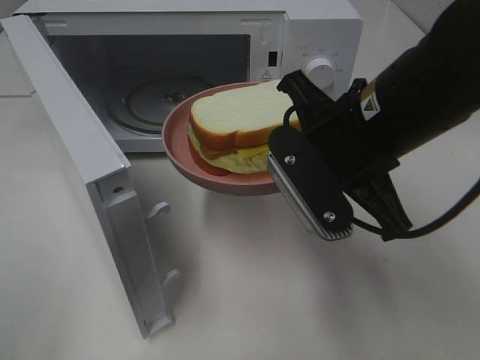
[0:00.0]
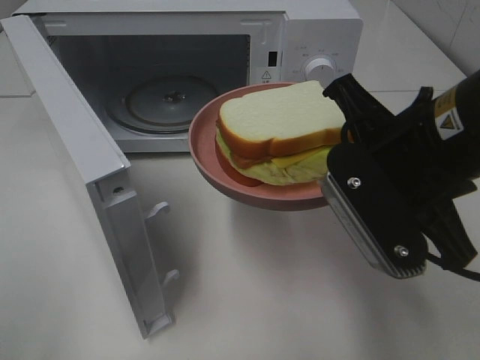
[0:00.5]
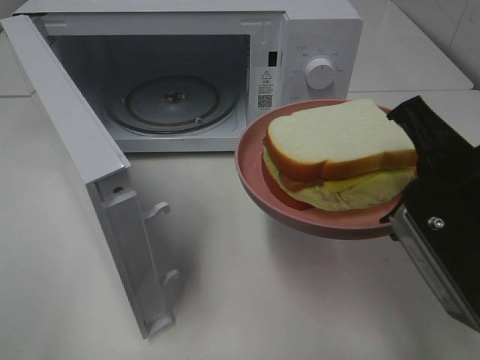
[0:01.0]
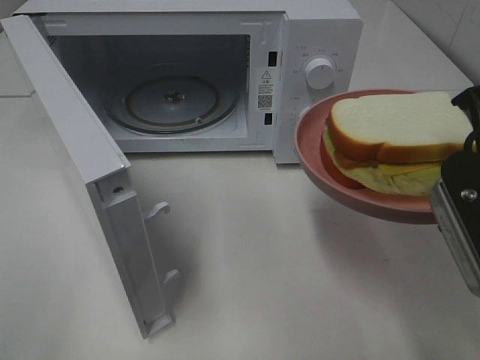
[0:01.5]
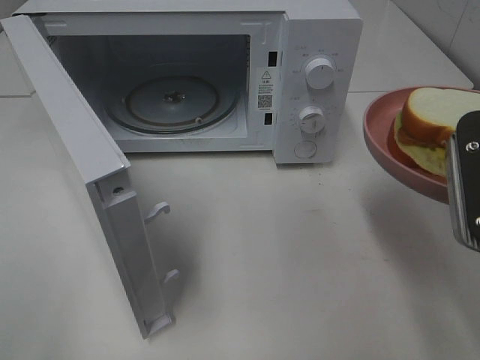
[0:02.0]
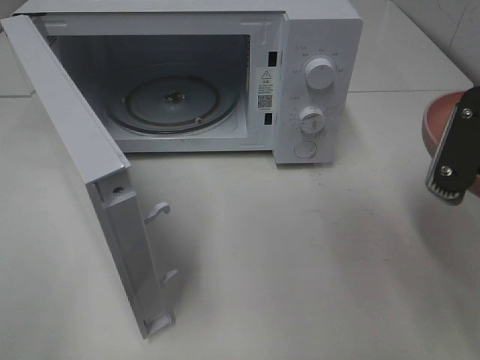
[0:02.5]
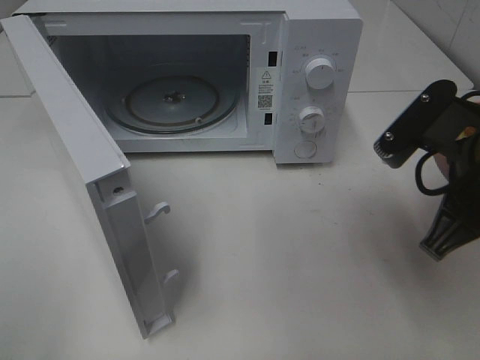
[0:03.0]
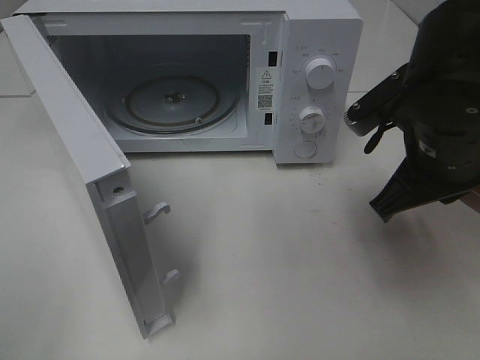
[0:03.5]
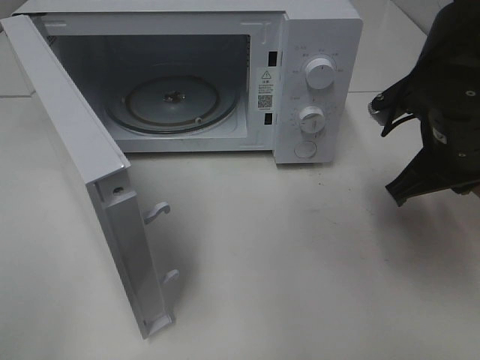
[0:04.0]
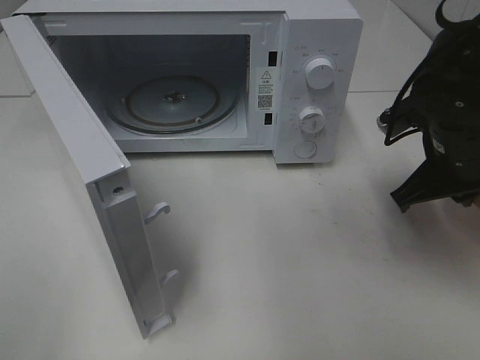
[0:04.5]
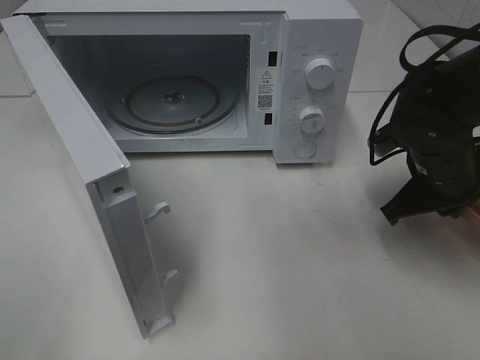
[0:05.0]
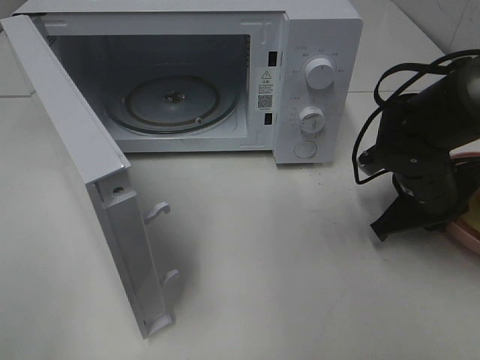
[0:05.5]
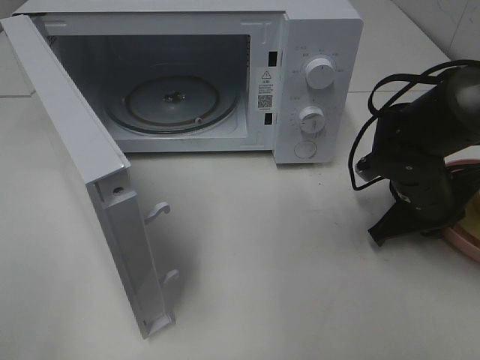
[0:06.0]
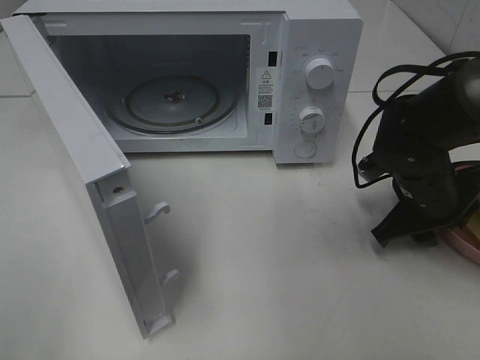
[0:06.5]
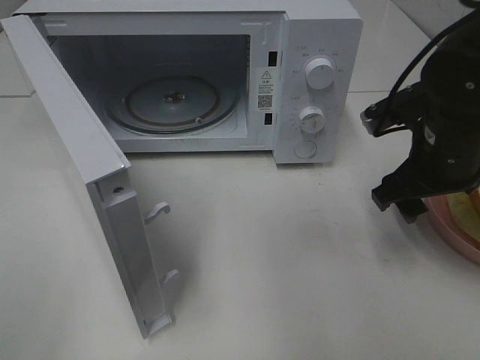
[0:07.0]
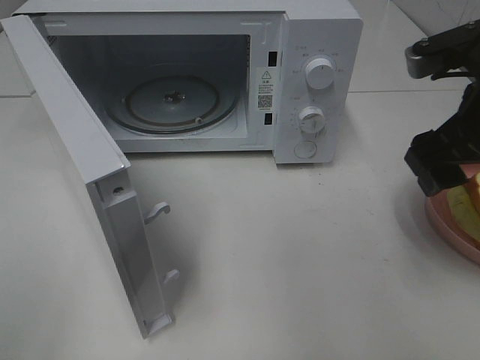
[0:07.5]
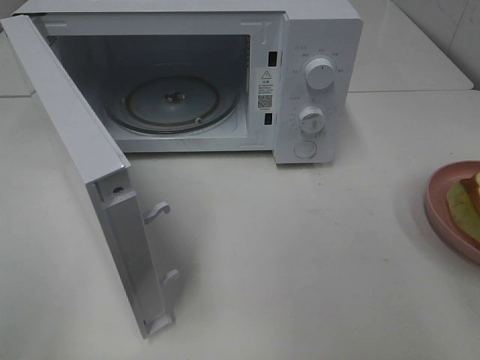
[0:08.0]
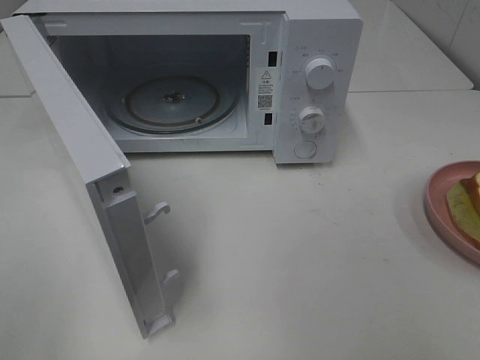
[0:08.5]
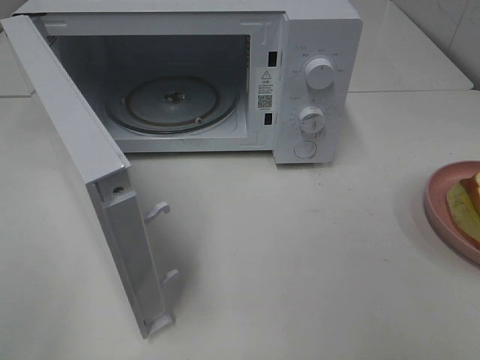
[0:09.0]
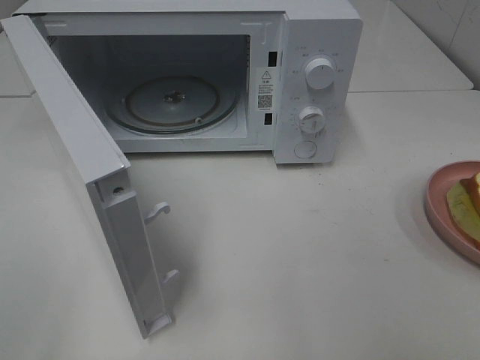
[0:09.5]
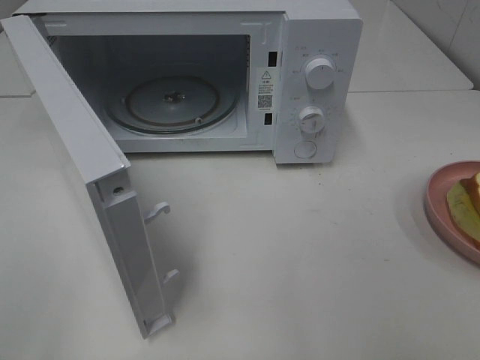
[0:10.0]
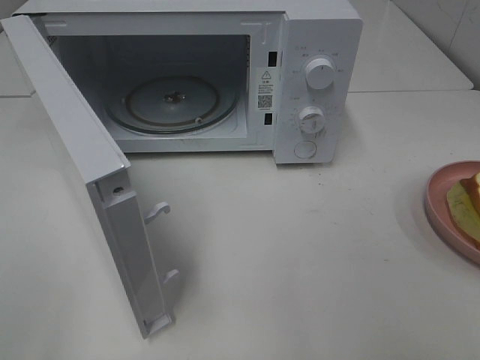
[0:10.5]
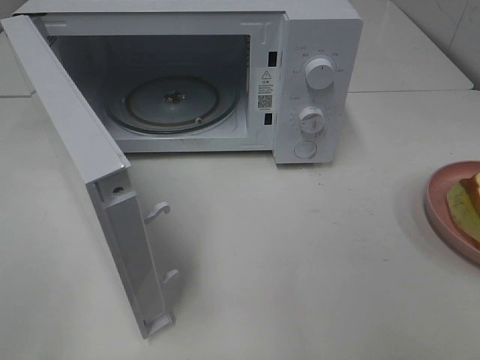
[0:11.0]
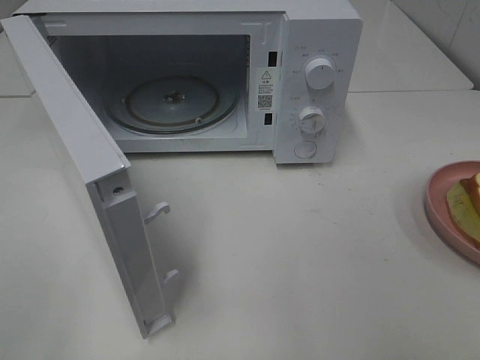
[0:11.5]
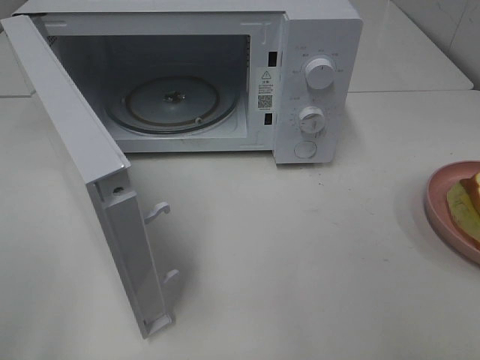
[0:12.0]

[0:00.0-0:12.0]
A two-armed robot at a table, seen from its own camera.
Task of the whole recording: Heat Sandwich.
Step, 0:00.0 to 0:07.0: Right hand: place the plate on the table.
0:00.0 to 0:02.0: The right gripper travels to the right and backward by approximately 15 cm.
0:02.0 to 0:04.0: The right gripper heads forward and downward, covering some 15 cm.
0:04.0 to 0:06.0: The right gripper moves downward, about 10 cm.
0:06.0 to 0:08.0: The right gripper shifts roughly 25 cm upward and backward, and opens up.

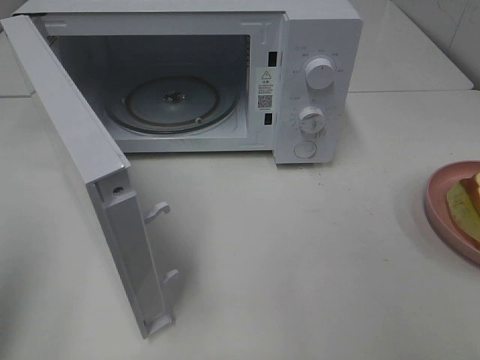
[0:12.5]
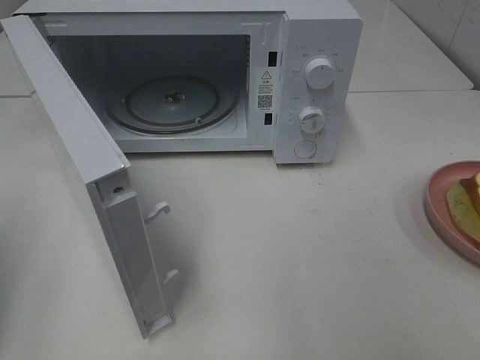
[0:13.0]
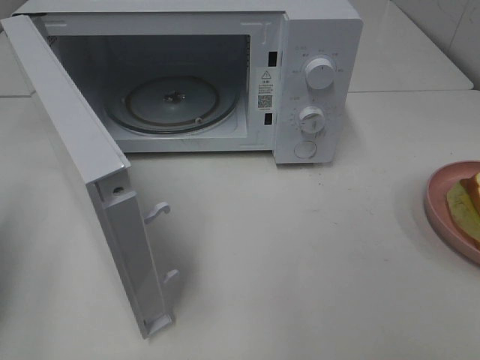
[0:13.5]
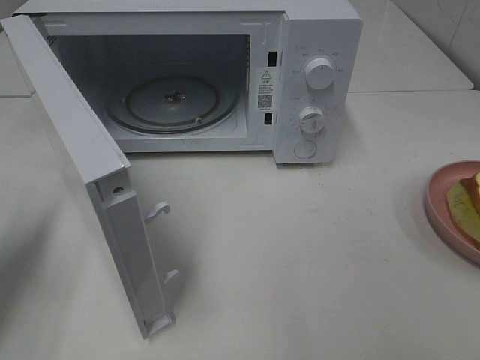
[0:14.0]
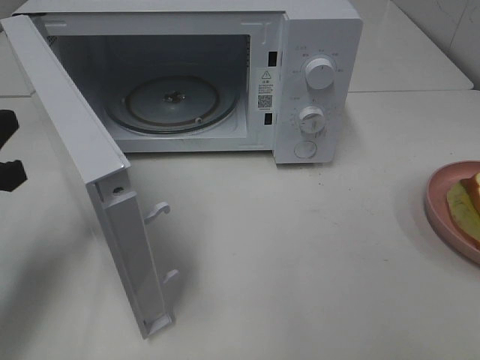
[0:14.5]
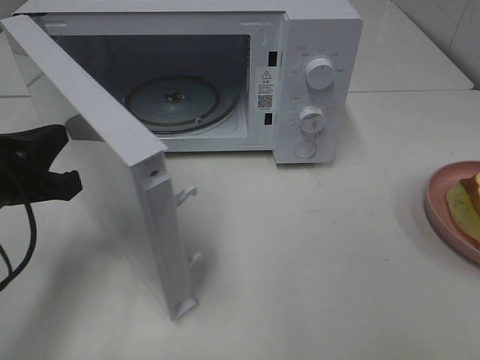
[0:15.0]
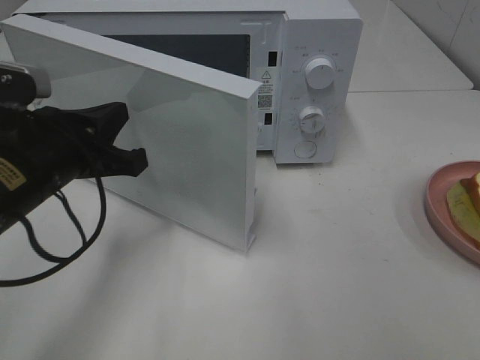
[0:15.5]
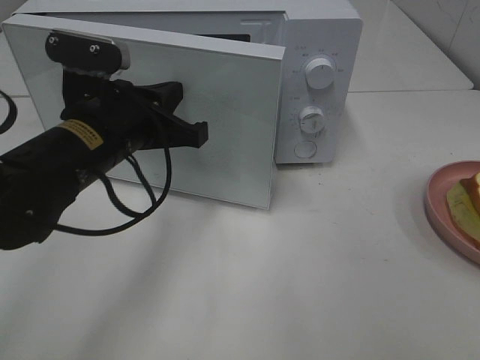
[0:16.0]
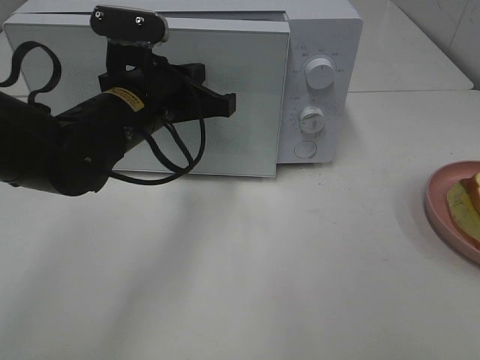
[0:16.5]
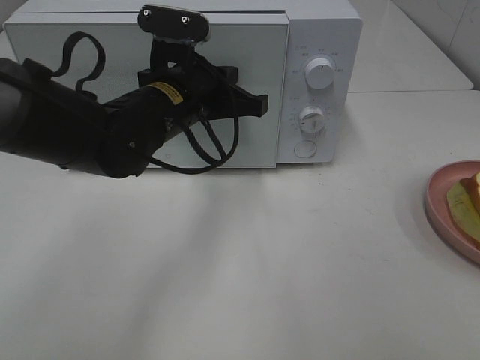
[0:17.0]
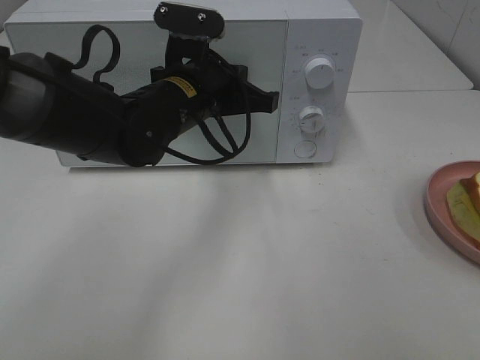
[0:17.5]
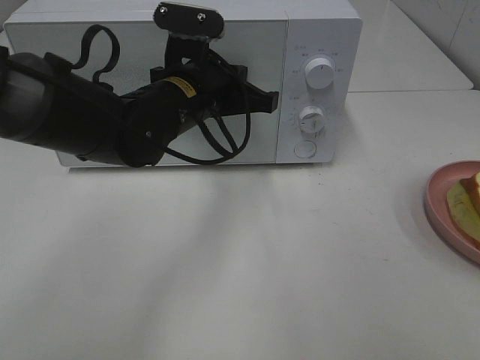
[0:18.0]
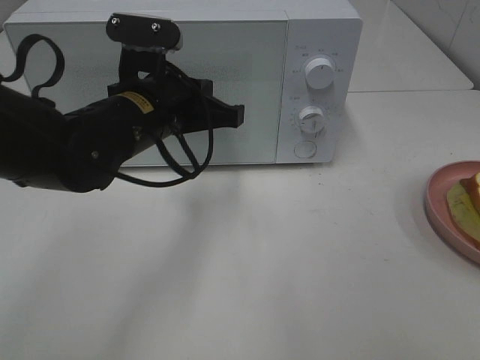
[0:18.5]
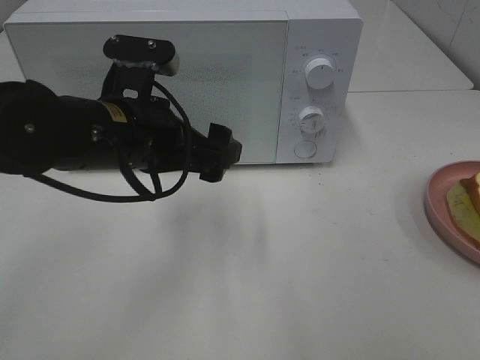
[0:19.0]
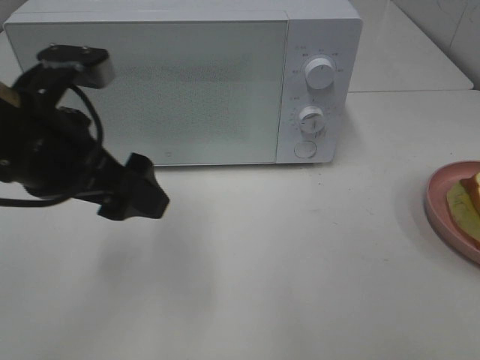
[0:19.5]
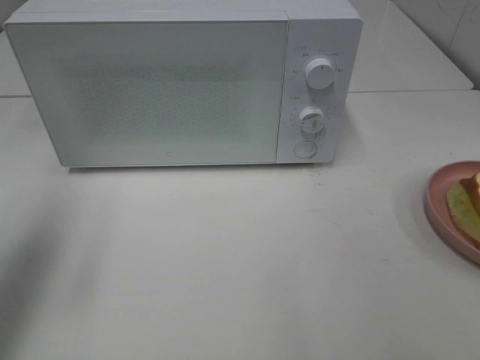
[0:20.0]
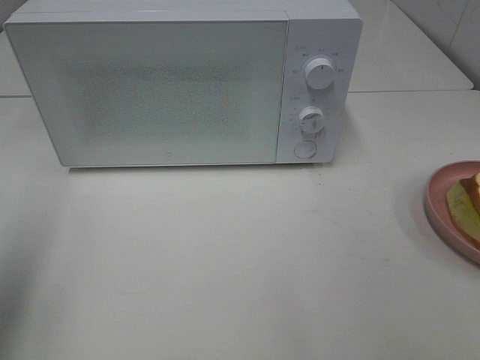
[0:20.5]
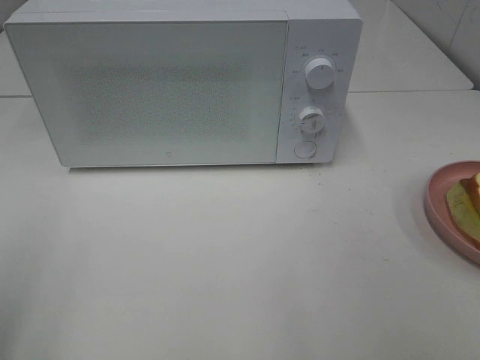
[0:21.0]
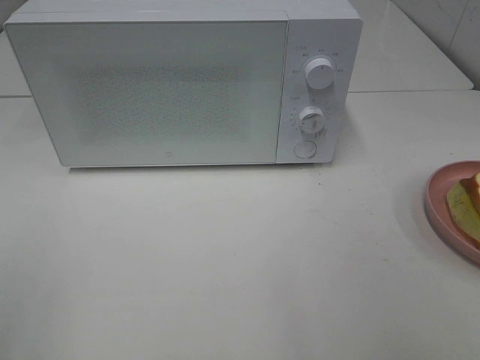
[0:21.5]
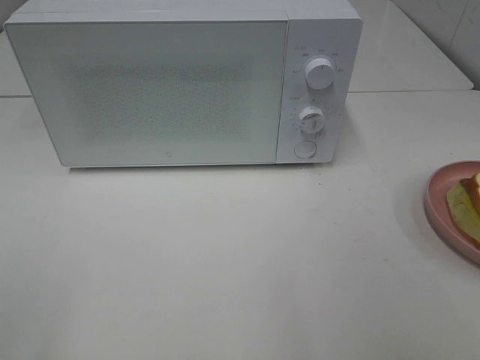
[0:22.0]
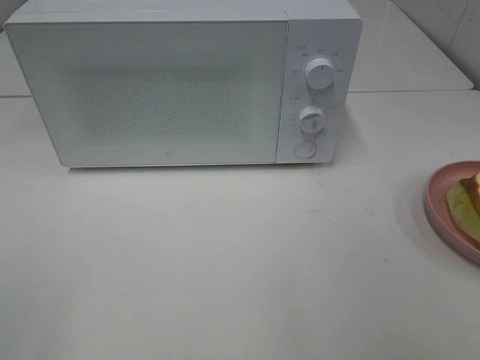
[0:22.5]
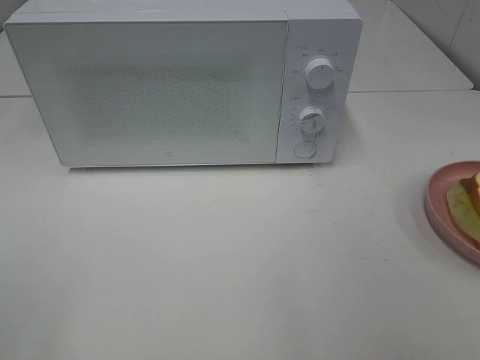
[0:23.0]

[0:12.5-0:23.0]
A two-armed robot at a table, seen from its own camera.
Task of the whole recording: Heat Sandwich.
Step, 0:12.5 to 0:18.5: Left hand: close the microwave door.
0:12.5 to 0:14.5: The left gripper shifts approximately 20 cm downward, forward and to the right.
0:14.5 to 0:16.5: The left gripper is displaced to the right and forward by roughly 20 cm.
0:16.5 to 0:19.0: The left gripper travels backward by approximately 5 cm, and opens.
0:19.0 to 0:21.0: The left gripper moves to the left and backward, approximately 30 cm.

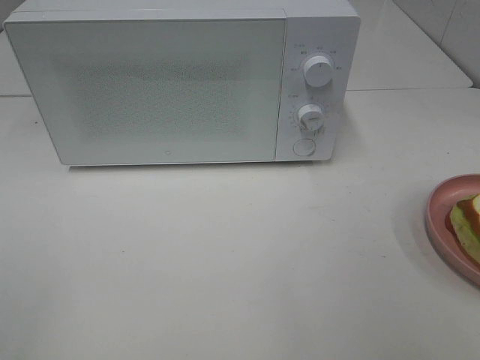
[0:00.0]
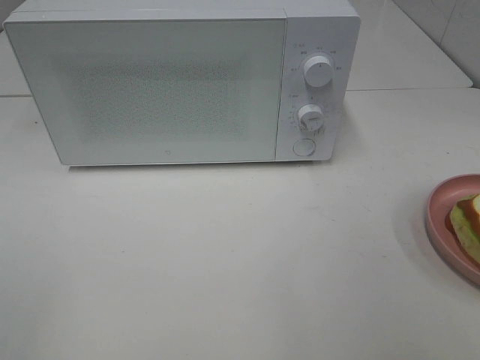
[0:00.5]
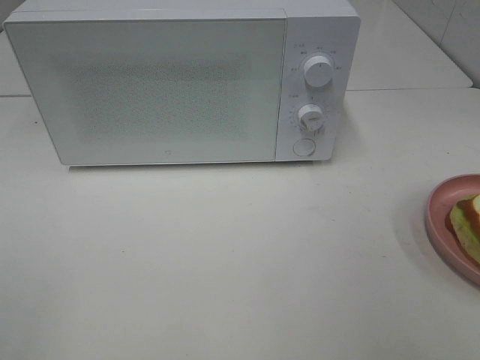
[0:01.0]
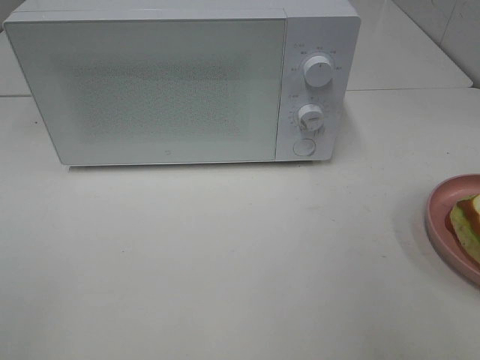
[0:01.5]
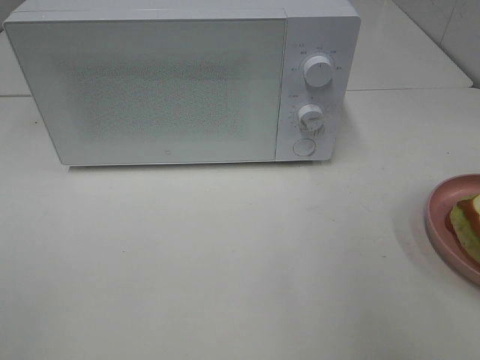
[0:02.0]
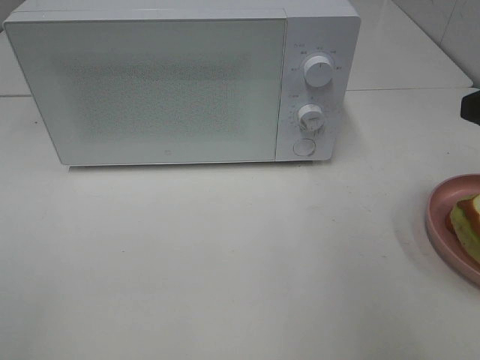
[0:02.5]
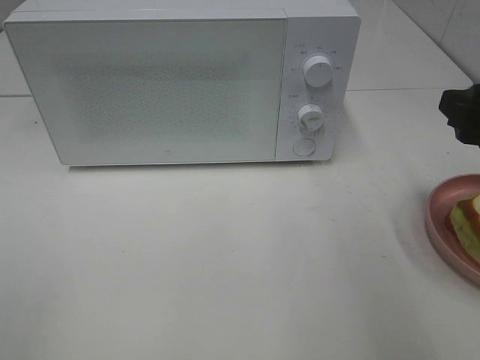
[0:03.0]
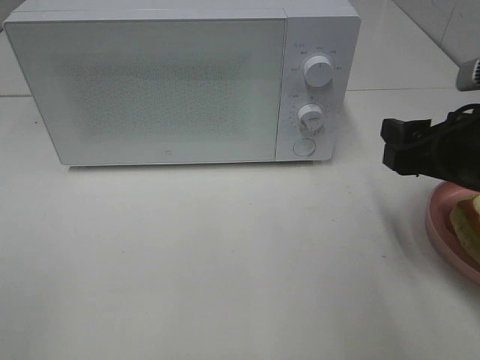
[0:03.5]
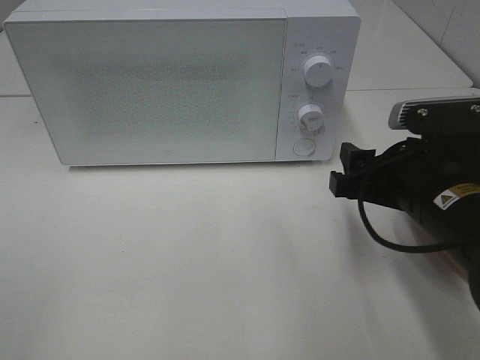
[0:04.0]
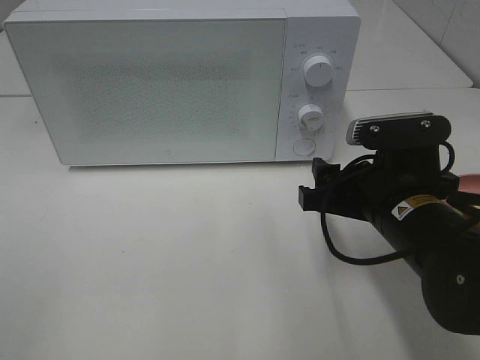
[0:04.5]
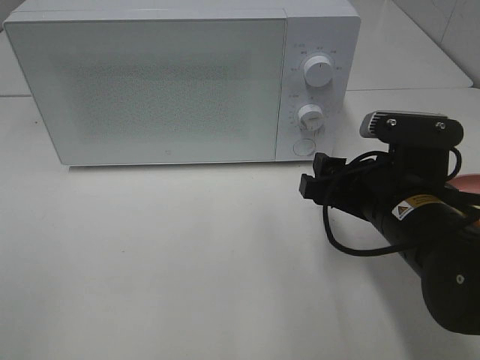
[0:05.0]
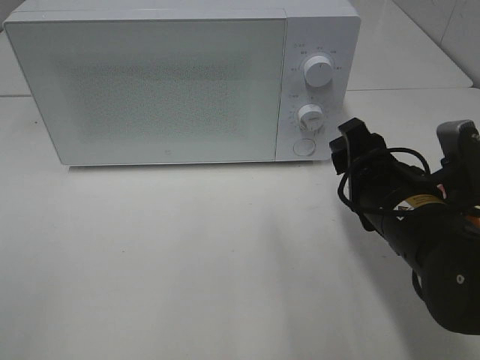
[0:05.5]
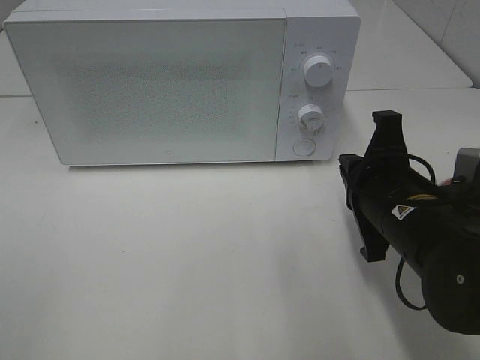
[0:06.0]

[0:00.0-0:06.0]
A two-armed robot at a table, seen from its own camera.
Task of the whole recording: Heat Sandwich.
0:02.0 to 0:04.0: The right gripper travels downward, to the left and forward by some 15 cm.
0:04.0 to 0:06.0: The right gripper closes.
